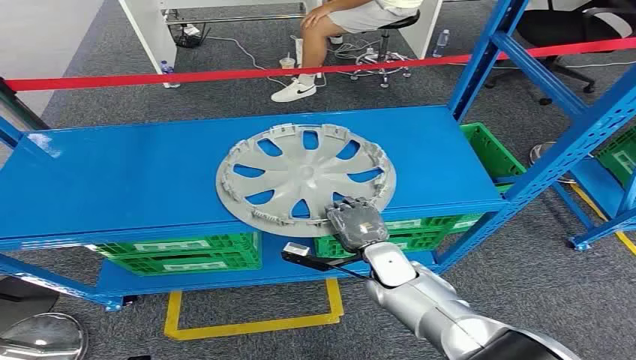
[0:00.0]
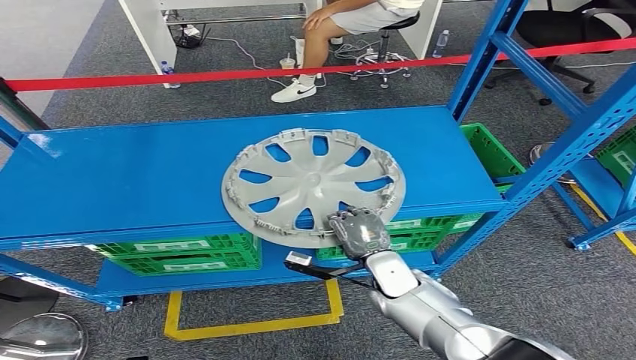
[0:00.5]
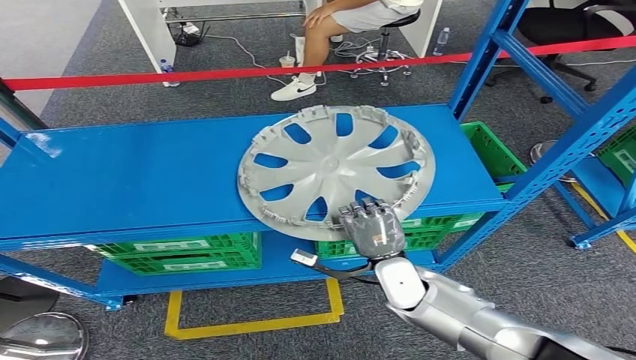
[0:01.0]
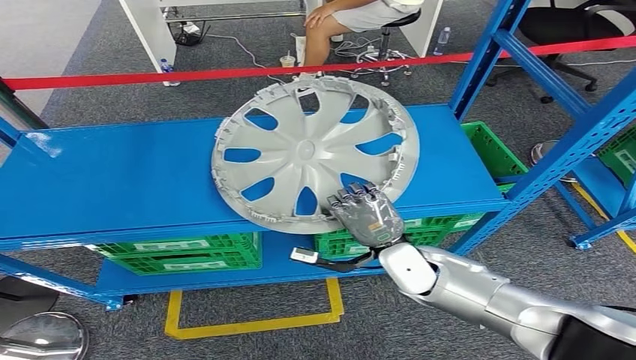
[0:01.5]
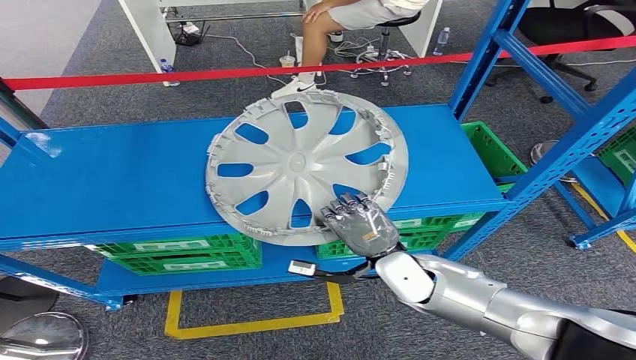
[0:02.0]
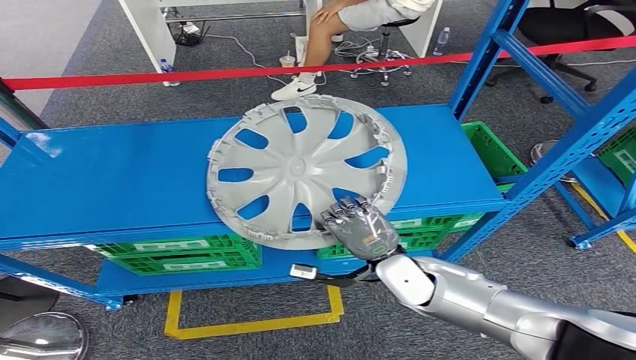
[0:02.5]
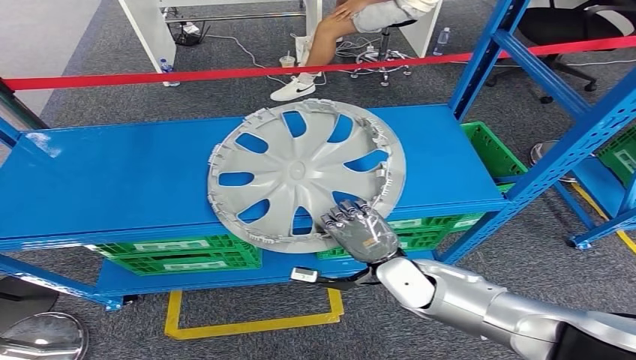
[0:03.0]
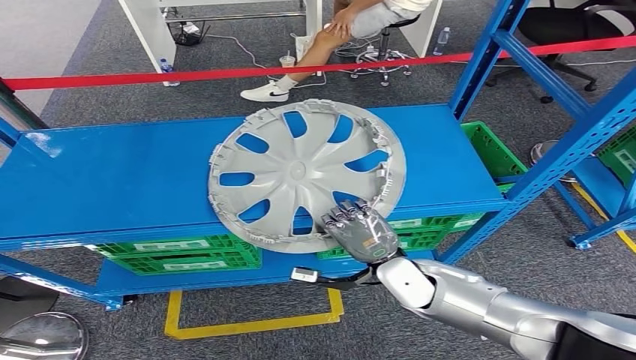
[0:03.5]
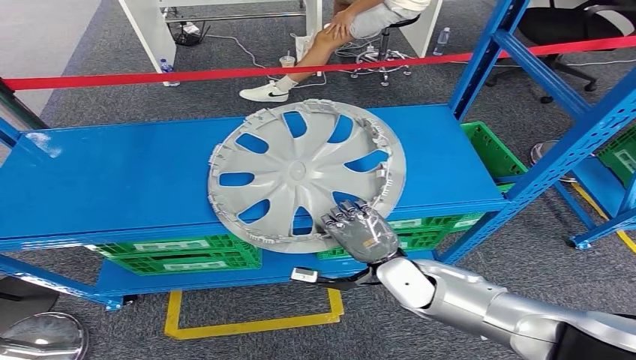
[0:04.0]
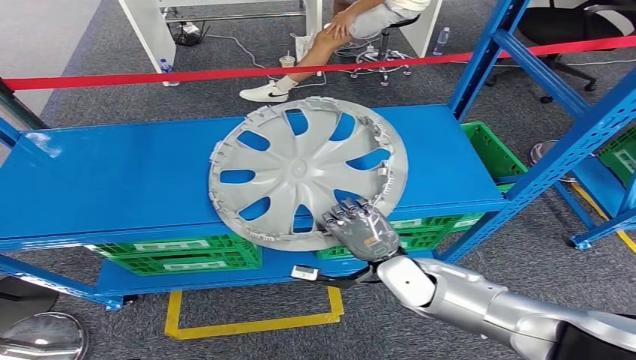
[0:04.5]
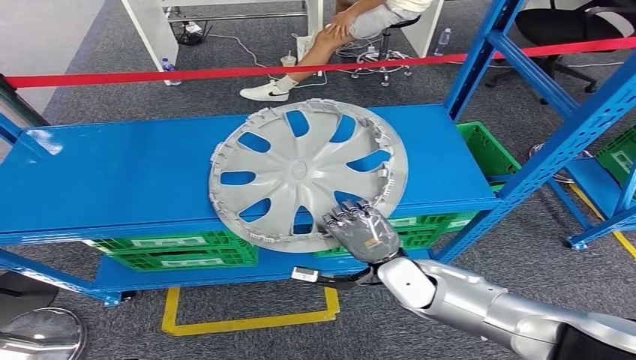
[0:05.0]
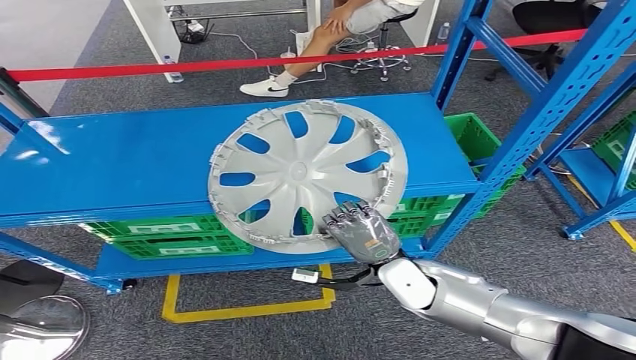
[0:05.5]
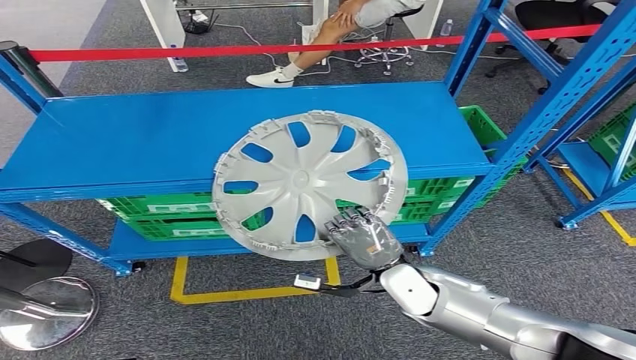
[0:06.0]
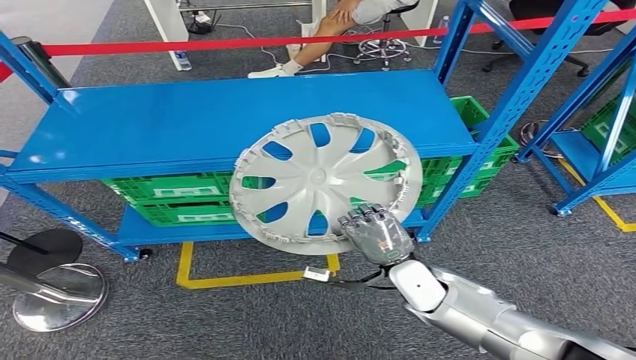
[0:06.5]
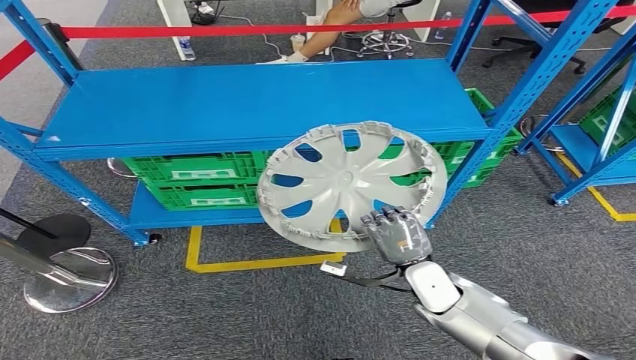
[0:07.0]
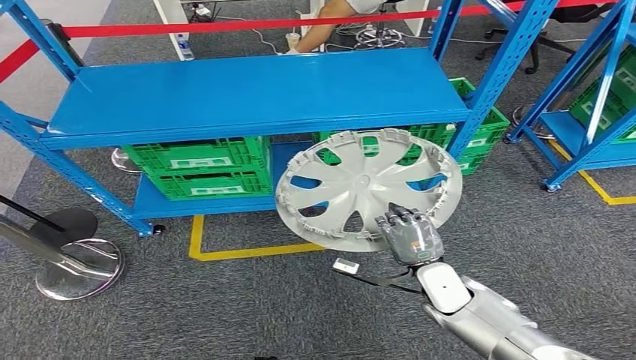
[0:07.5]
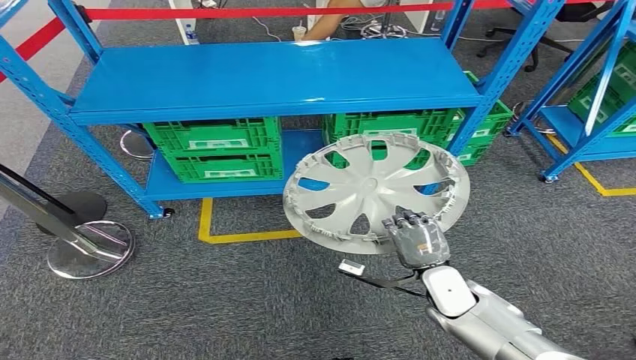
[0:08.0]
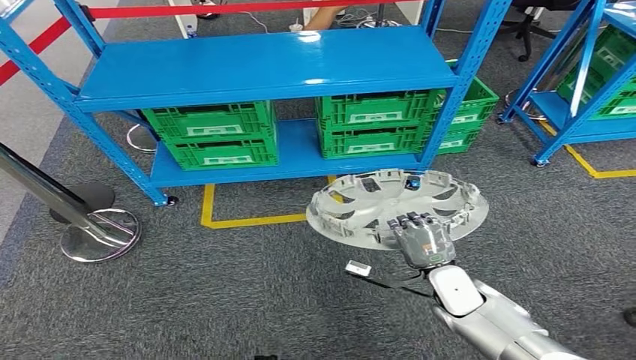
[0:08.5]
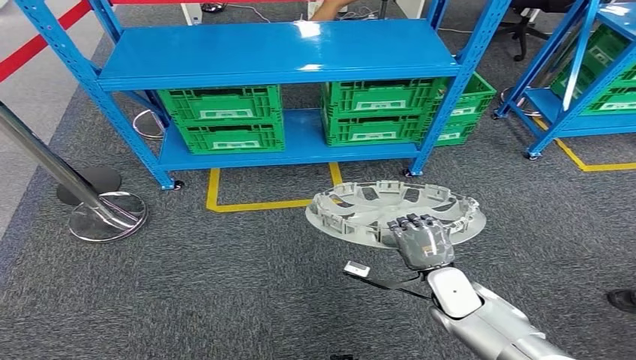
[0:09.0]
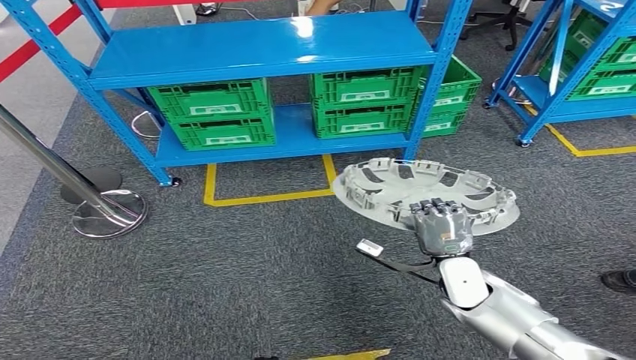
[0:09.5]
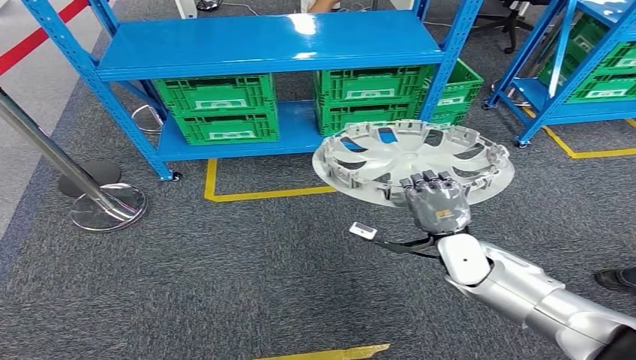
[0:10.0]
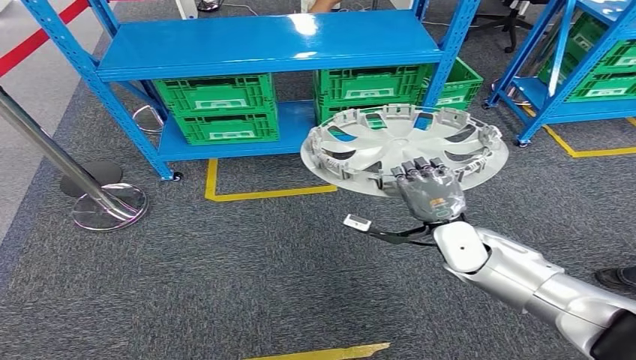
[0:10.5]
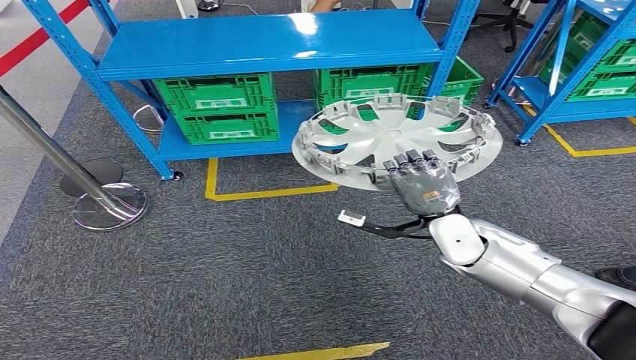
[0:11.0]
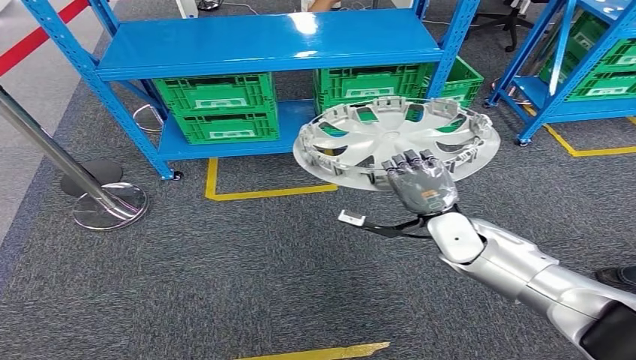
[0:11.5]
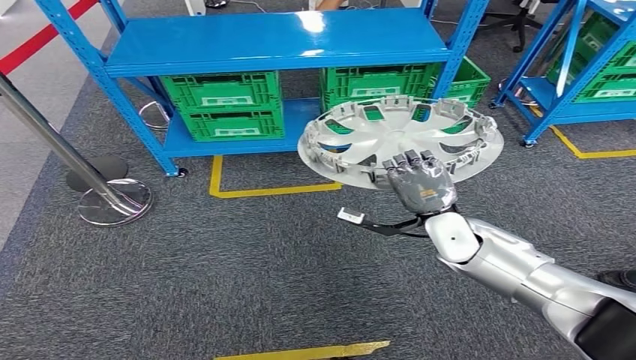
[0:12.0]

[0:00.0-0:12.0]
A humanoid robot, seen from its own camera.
Step, 0:00.0 to 0:07.5: Take small components from the rack.
0:02.0 to 0:04.0: Neither hand changes place.

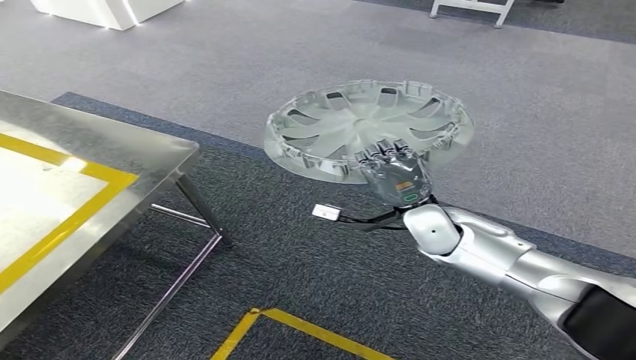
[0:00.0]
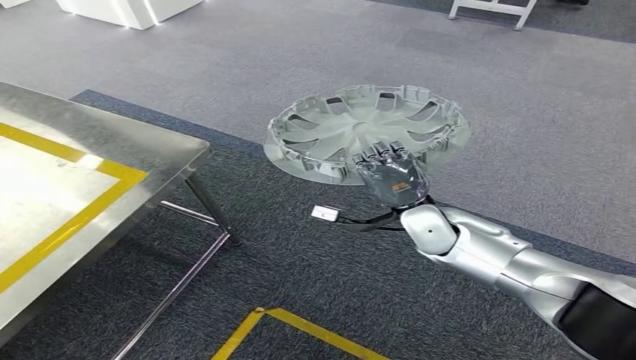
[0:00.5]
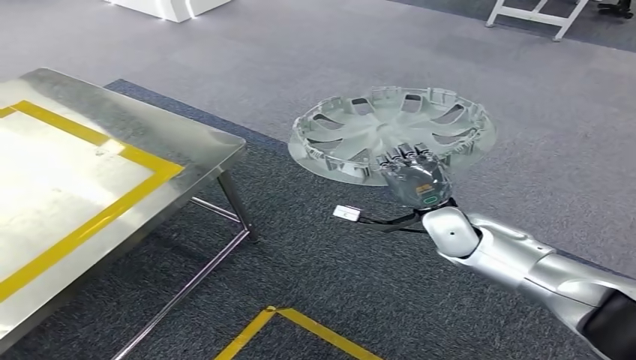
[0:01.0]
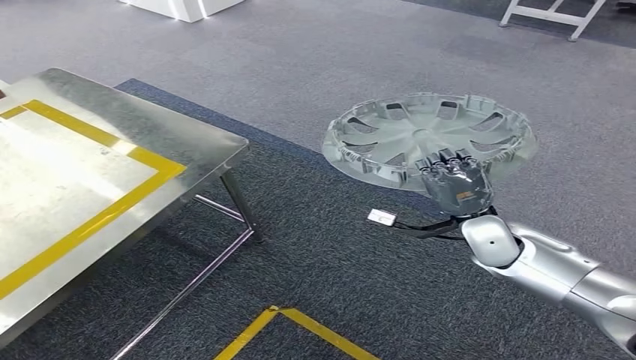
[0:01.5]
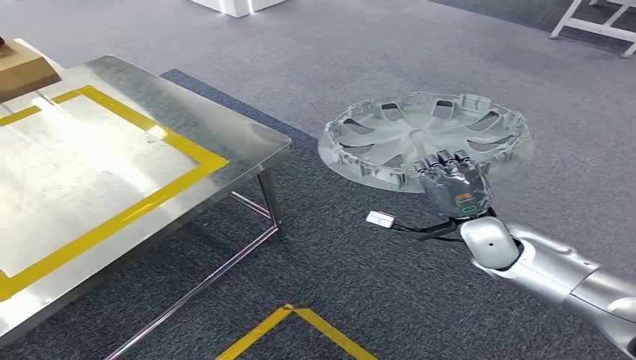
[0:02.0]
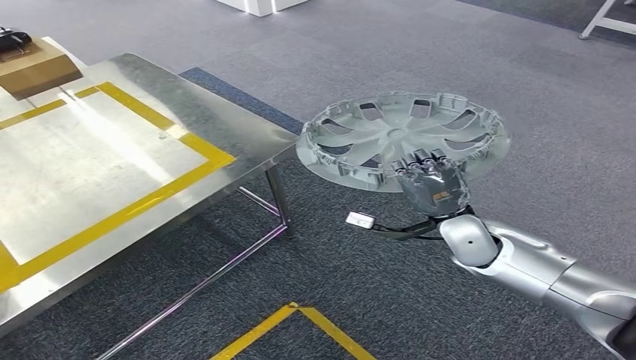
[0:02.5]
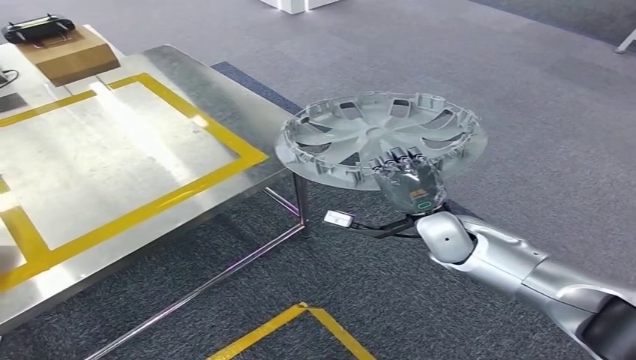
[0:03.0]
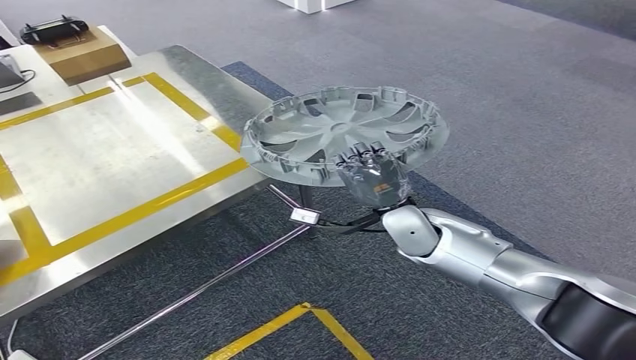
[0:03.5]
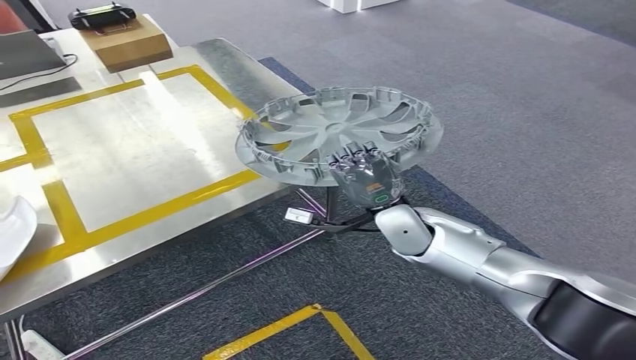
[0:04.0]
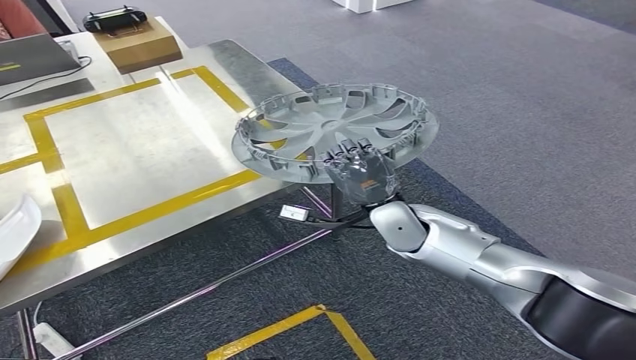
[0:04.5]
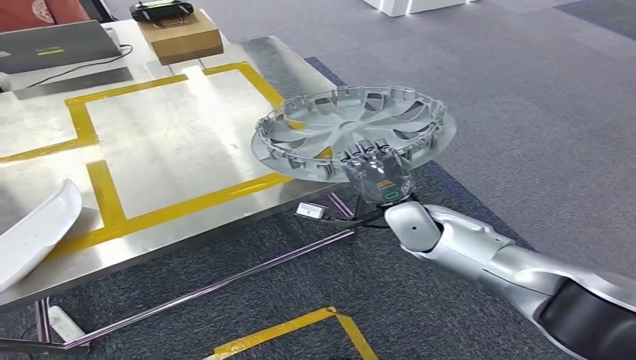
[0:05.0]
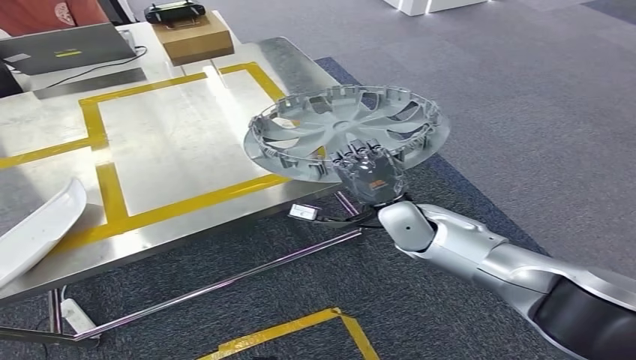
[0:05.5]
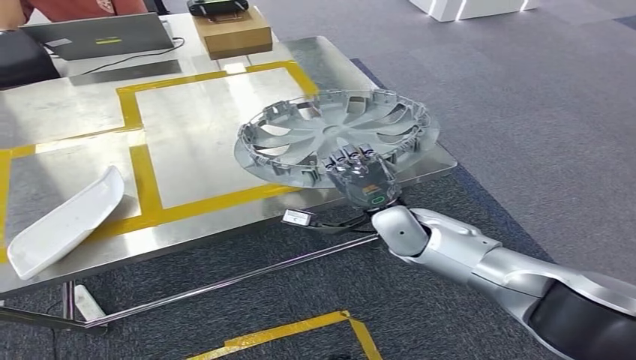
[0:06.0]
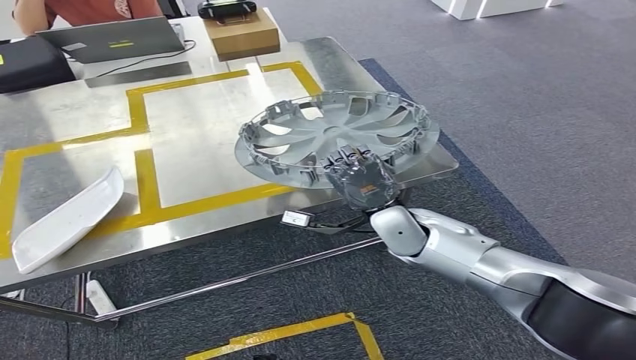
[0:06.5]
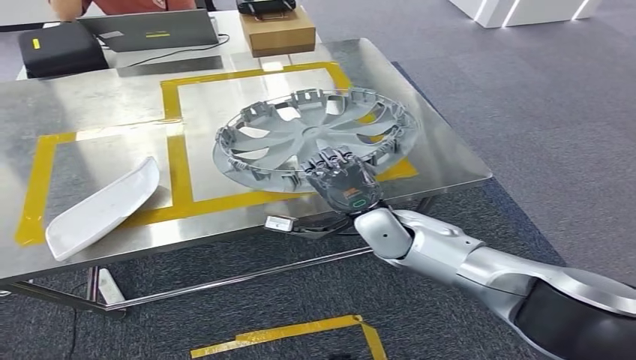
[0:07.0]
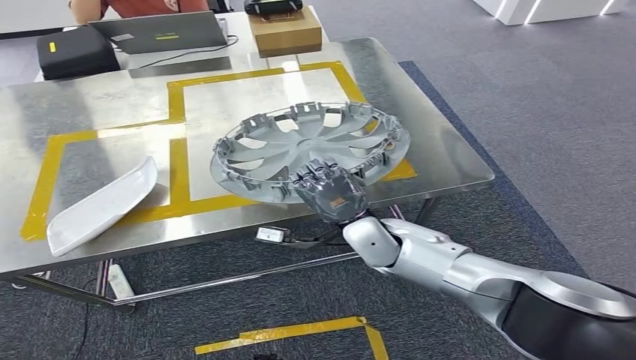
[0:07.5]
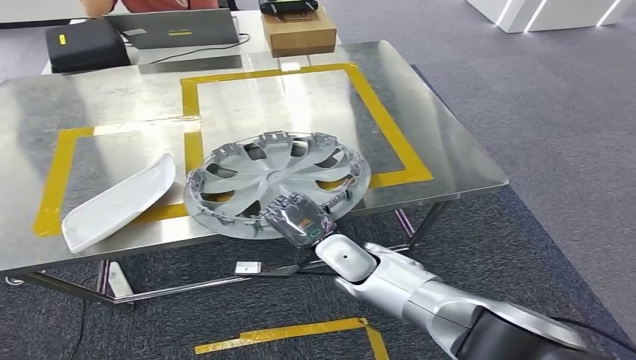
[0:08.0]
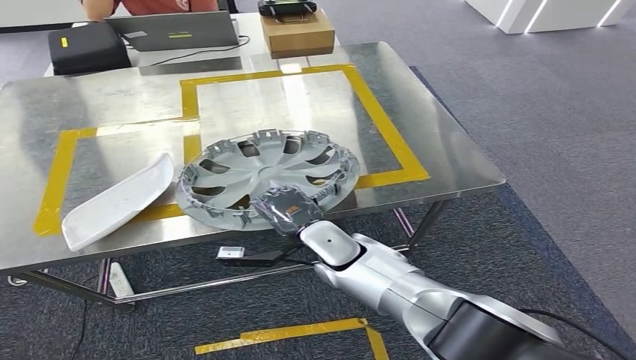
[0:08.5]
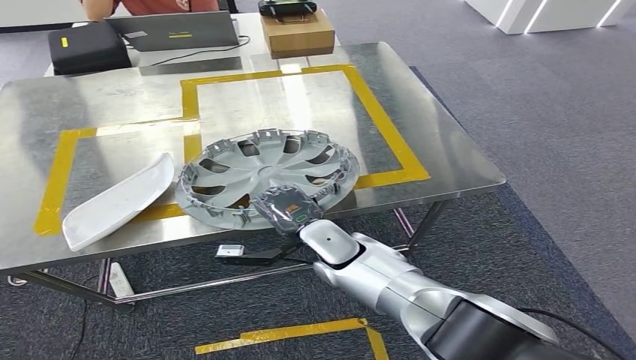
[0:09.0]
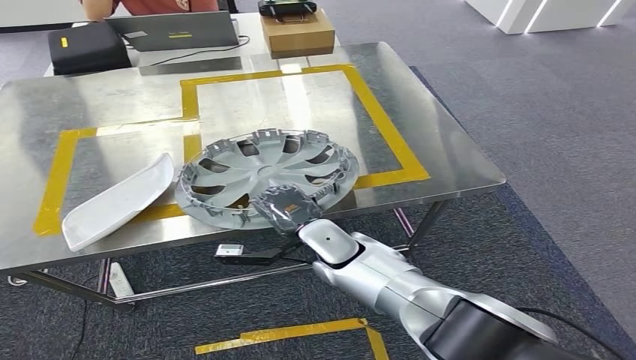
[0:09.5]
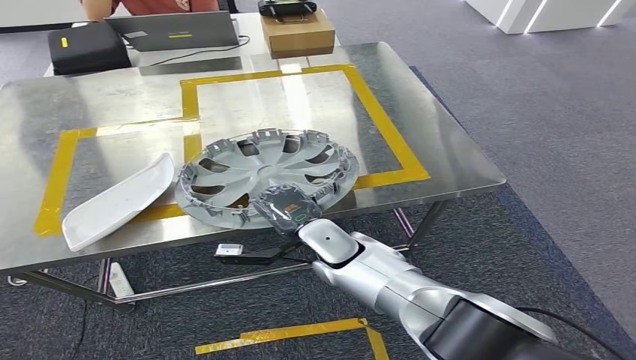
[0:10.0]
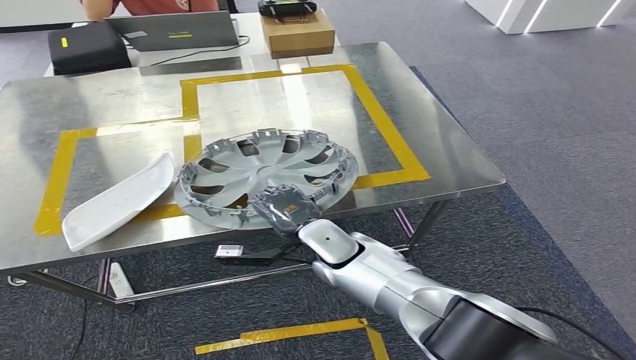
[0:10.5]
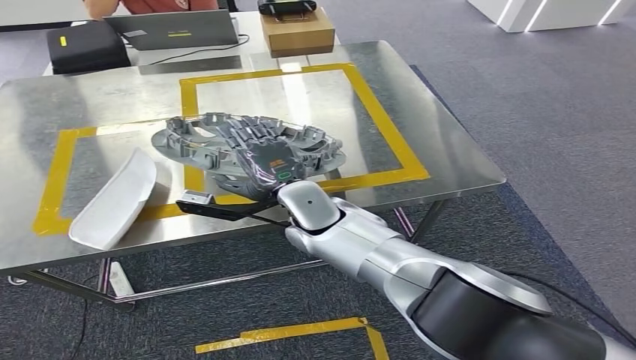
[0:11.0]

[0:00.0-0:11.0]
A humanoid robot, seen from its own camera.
Step, 0:00.0 to 0:07.0: Move the small parts to the workbench.
0:09.0 to 0:11.0: The right hand goes approximately 10 cm upward.
